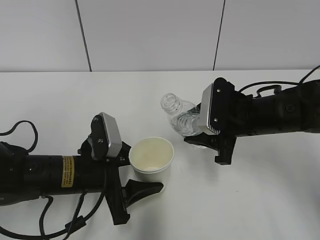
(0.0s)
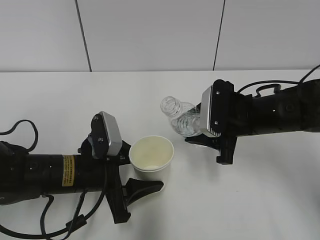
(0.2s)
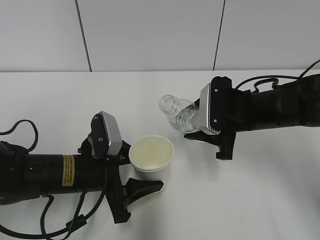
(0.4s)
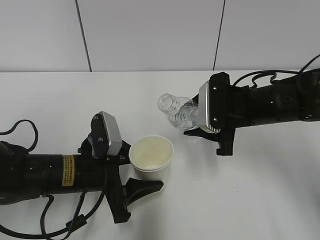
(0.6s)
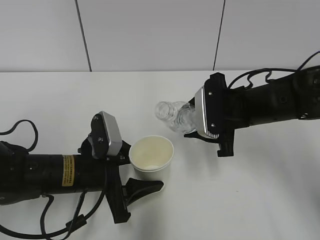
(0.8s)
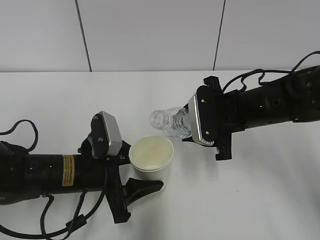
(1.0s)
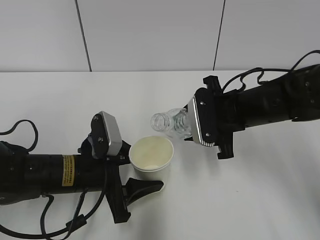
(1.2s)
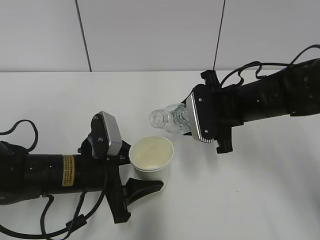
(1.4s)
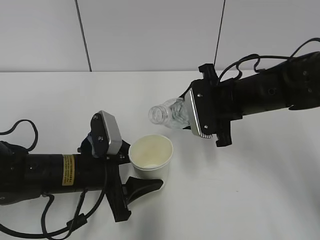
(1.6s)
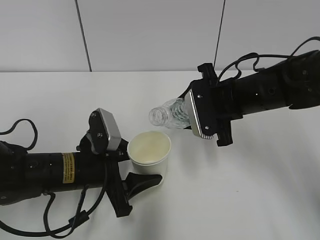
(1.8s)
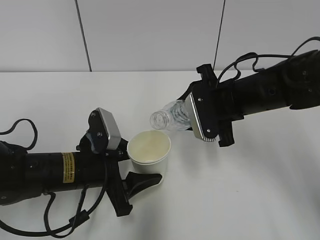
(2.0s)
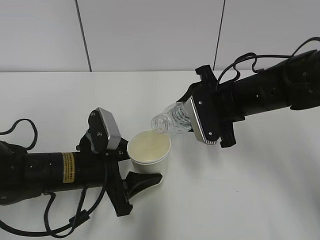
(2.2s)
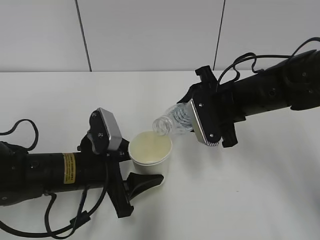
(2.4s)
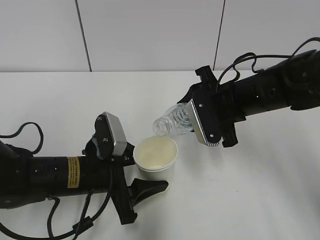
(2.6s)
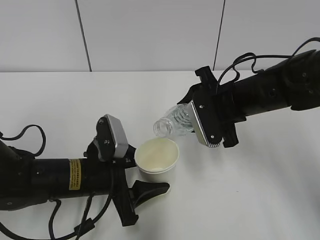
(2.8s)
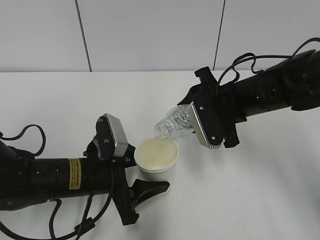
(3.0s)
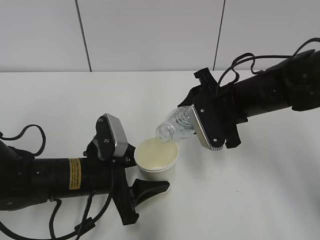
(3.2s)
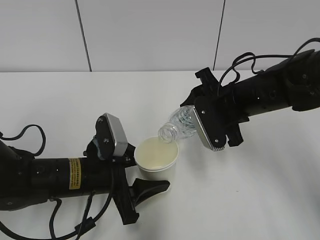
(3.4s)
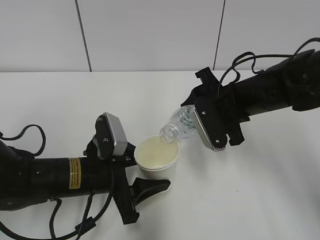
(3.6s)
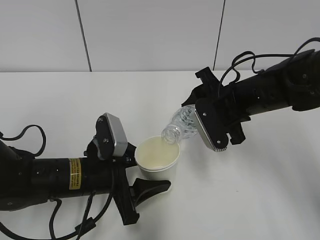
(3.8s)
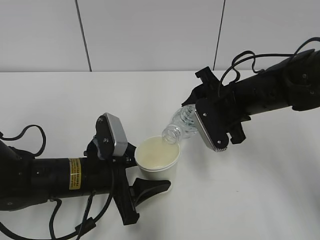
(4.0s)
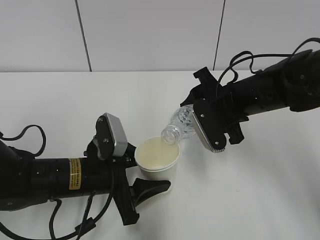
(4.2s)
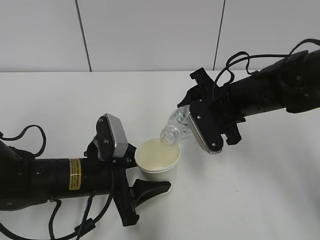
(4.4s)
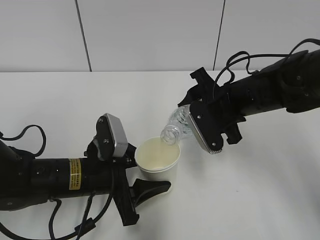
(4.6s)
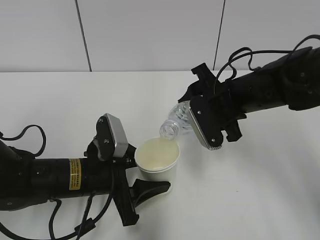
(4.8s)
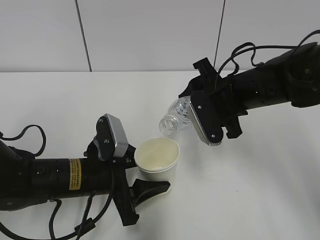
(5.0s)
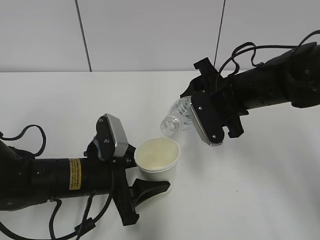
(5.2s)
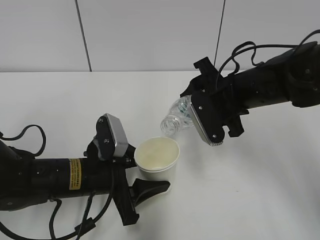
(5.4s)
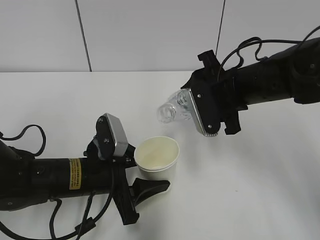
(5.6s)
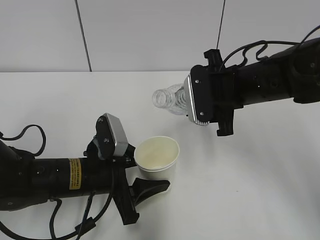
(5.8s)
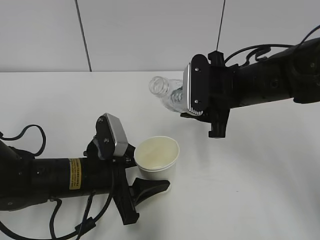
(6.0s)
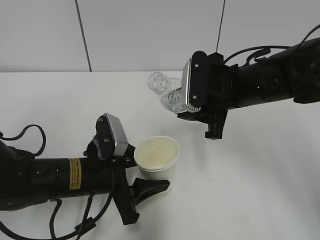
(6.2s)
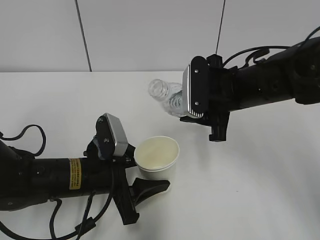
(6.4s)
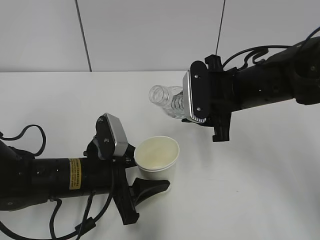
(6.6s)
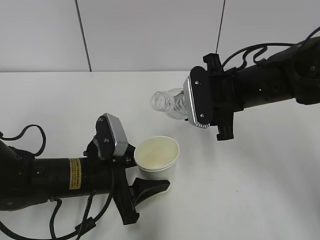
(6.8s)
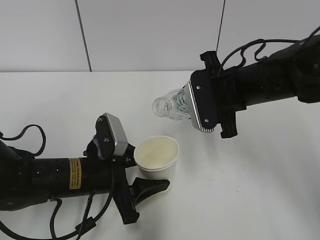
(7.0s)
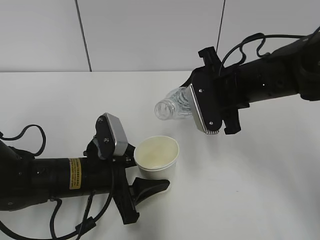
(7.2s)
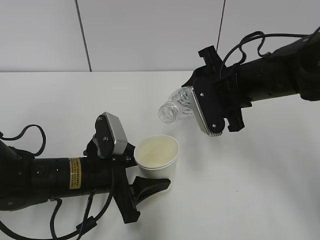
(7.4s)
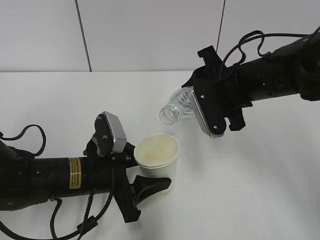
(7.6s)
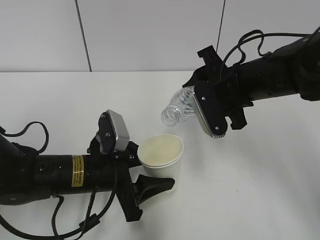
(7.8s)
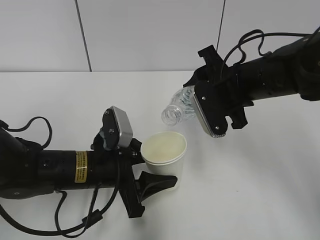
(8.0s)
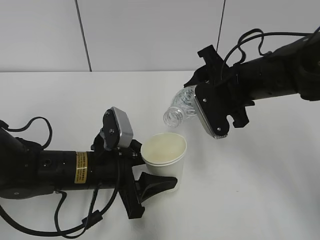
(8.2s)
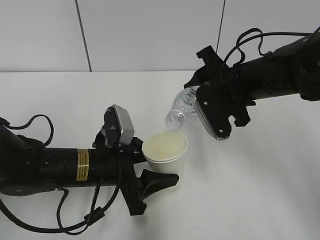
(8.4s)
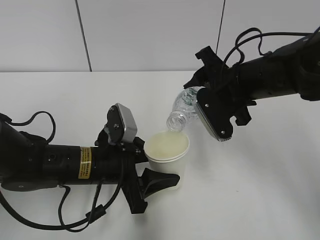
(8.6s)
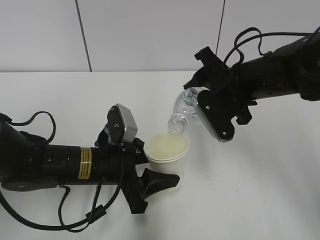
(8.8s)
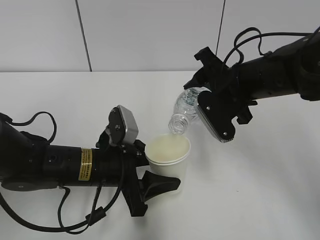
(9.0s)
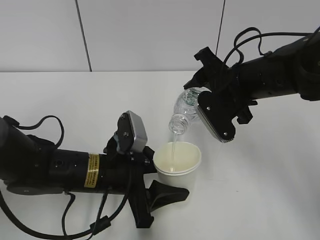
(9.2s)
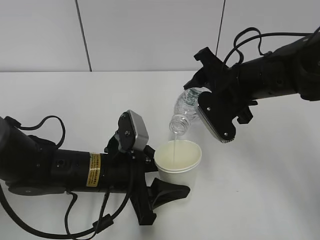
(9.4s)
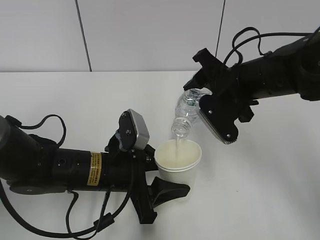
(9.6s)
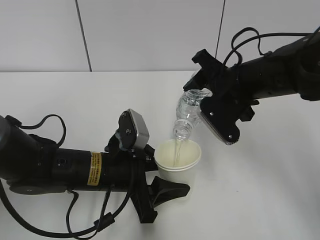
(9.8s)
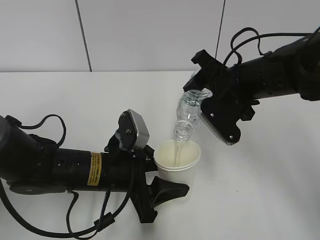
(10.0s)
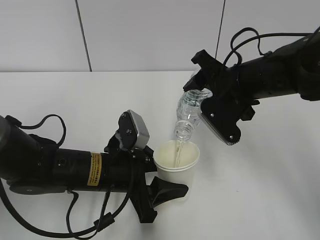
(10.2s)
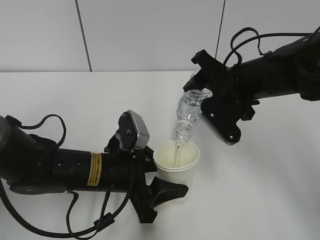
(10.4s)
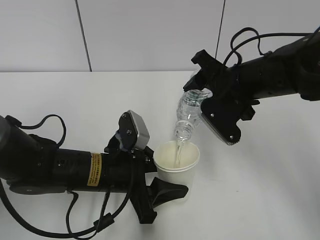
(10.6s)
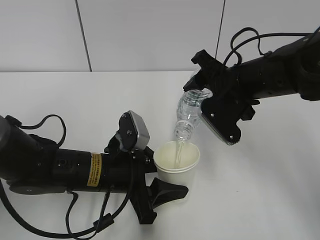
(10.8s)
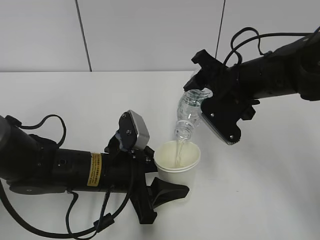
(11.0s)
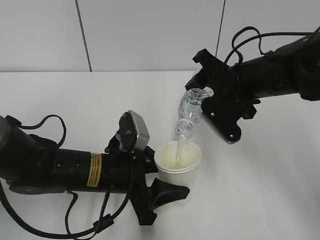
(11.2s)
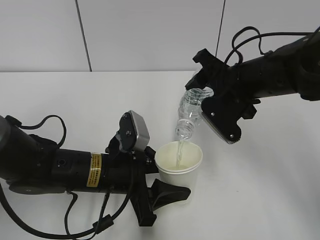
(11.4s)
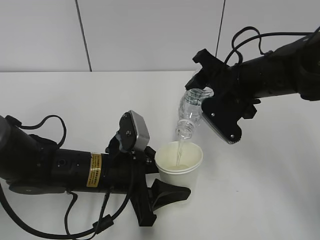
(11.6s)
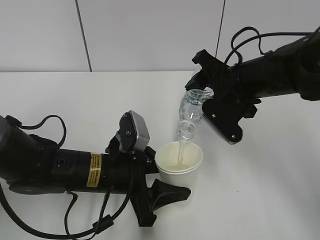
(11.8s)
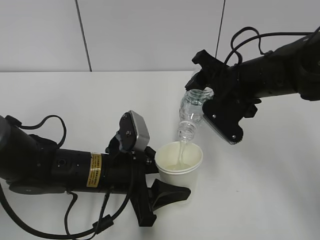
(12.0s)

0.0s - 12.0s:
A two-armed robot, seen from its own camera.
Step, 0.0s - 4.2s: Lift the paper cup with the left hand.
Step, 4.4s - 9.2s: Fill water with the left hand.
Step, 4.4s - 9.2s: Pour water with the right hand.
1.6s - 3.0s: There are only small adjustments of the grippers.
3.0s - 4.4s: The grippers make only small movements.
7.6s - 9.0s: The grippers stay close to where they were, moving slightly.
9.0s - 10.4s: The grippers make only small movements.
10.4s - 12.0s: The two grippers keep their place.

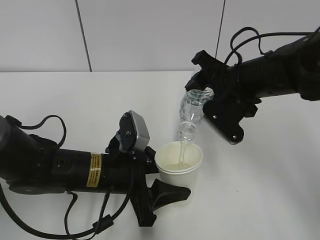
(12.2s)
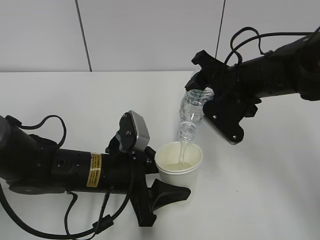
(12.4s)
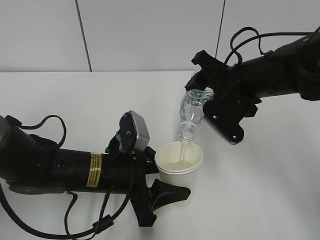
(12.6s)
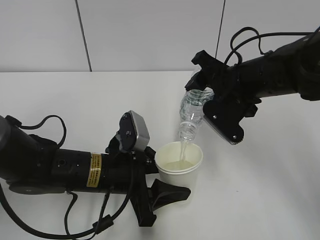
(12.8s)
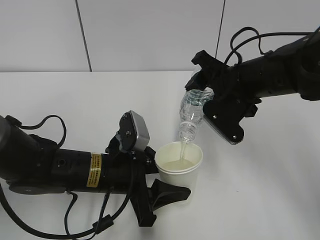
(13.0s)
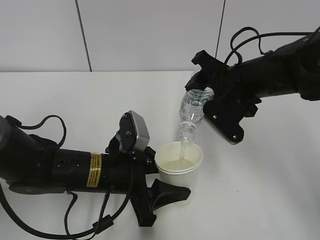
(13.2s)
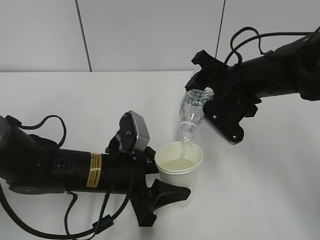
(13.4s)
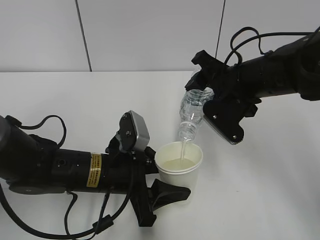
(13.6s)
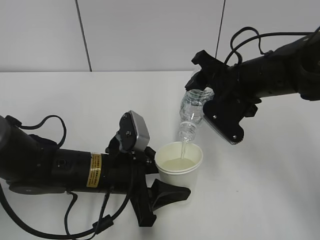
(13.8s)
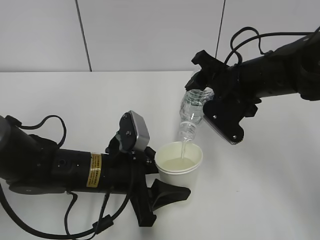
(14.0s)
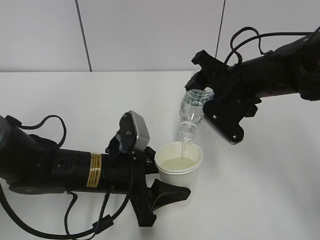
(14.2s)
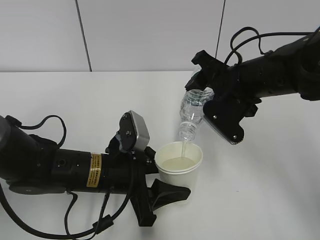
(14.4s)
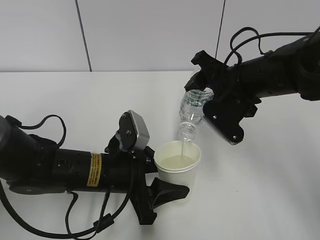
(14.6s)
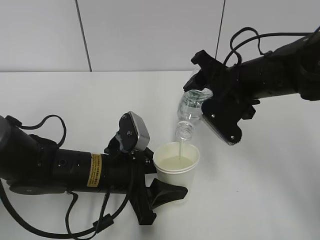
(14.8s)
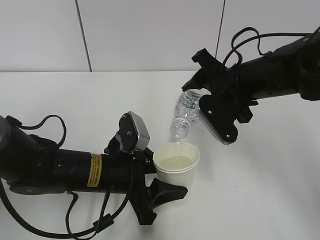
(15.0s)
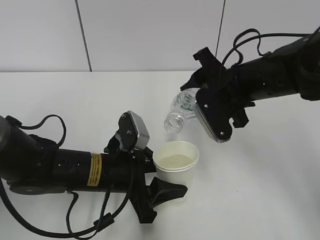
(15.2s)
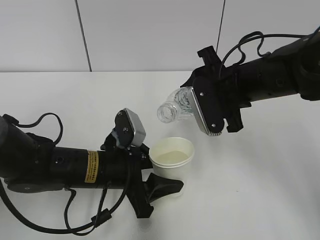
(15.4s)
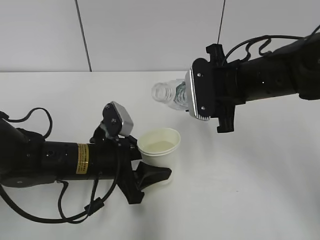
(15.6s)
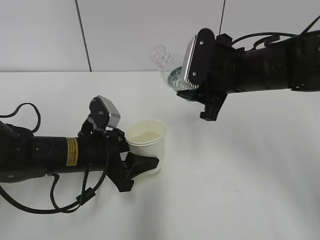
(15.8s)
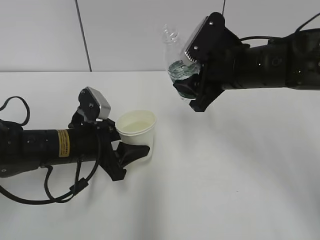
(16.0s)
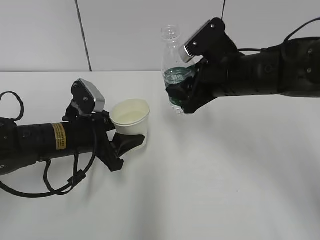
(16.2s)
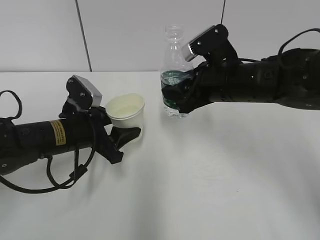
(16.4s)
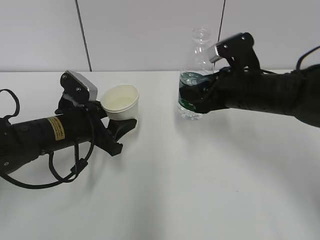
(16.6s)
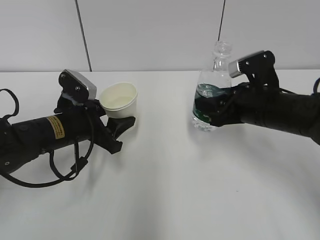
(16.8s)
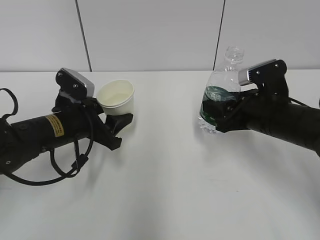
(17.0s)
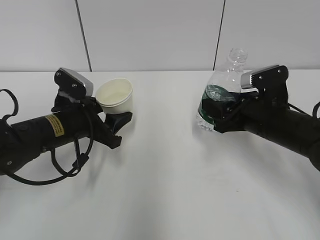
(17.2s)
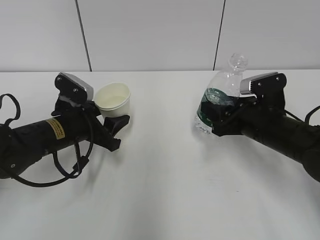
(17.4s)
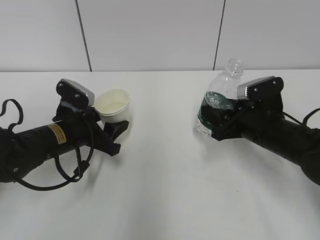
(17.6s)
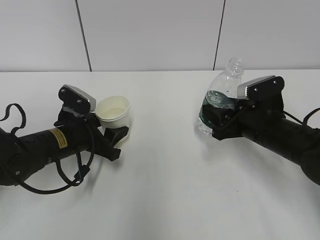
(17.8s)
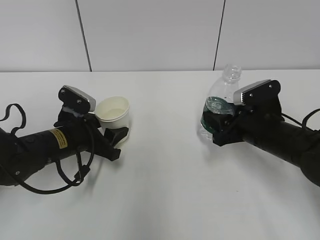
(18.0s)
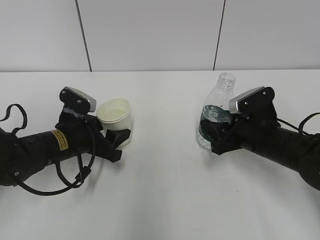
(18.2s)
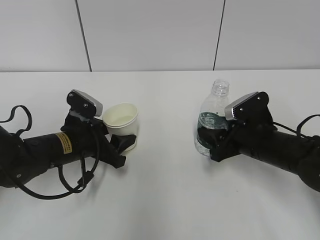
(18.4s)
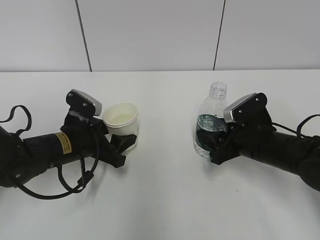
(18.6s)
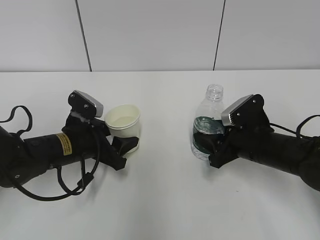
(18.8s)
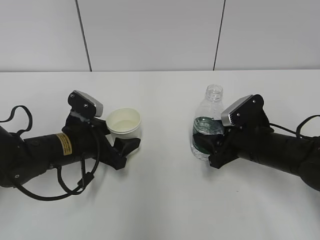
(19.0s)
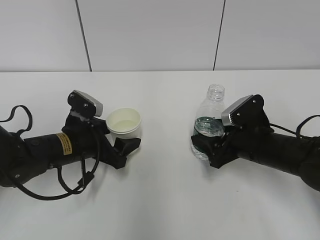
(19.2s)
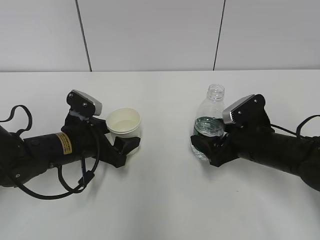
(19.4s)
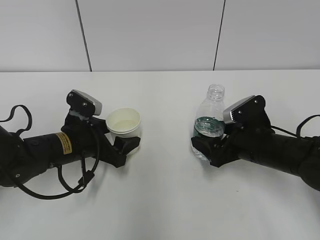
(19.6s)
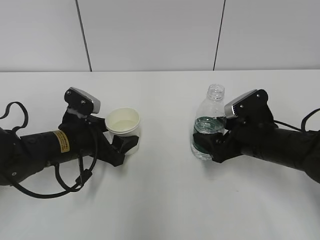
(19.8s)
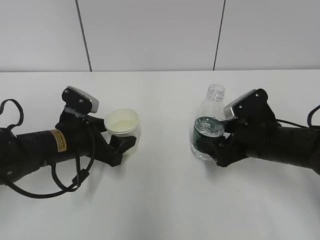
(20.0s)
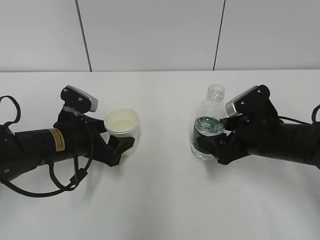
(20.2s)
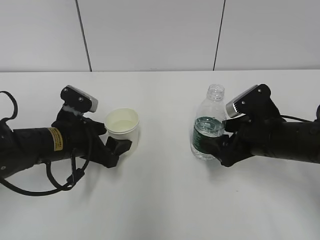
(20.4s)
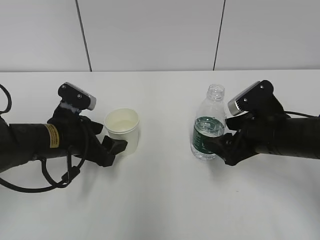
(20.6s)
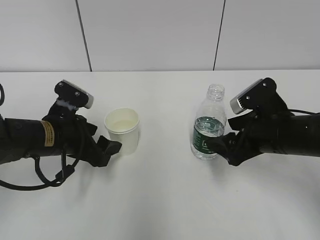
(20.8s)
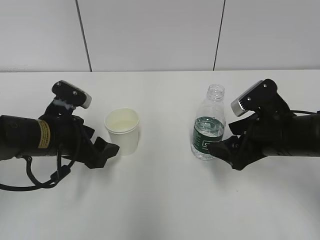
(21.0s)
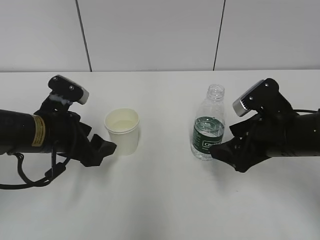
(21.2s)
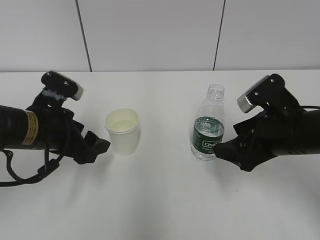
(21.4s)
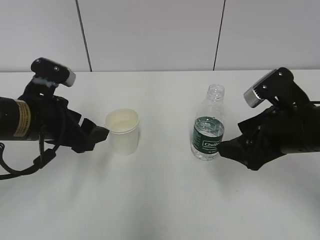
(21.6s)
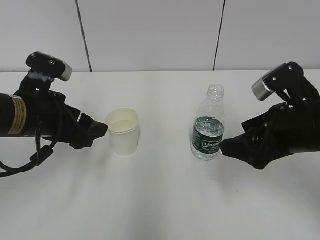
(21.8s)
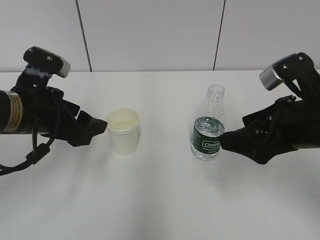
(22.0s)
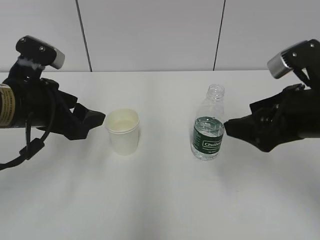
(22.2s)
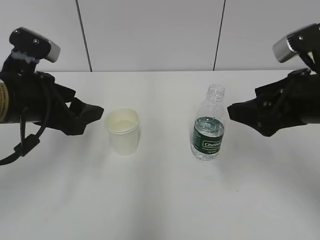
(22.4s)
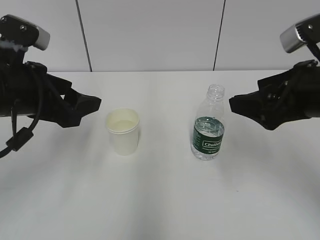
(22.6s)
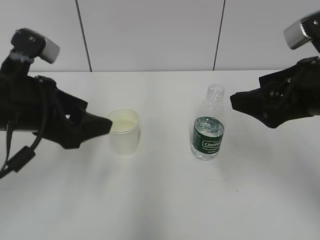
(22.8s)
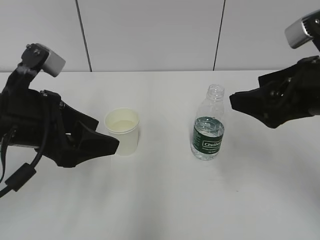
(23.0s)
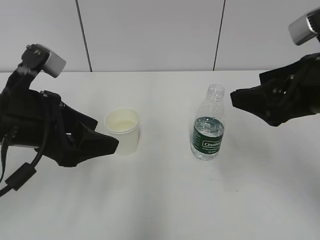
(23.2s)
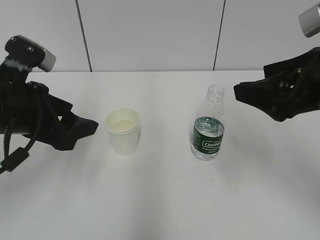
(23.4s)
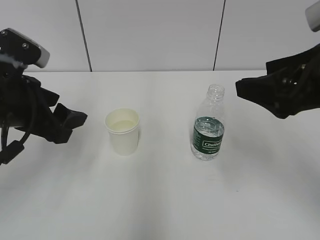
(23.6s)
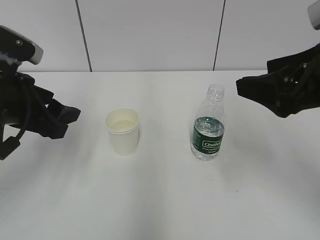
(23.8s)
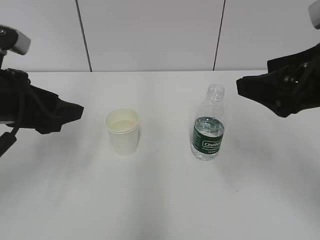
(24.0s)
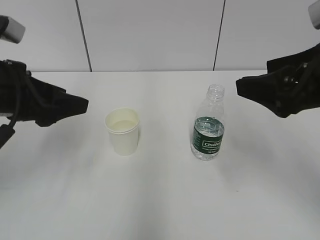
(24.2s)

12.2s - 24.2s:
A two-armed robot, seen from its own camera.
12.2s - 13.8s: The two grippers keep their place.
13.8s - 15.2s: The grippers move only a little.
15.2s - 16.6s: The left gripper shifts approximately 10 cm to the left and forward.
16.6s - 18.2s: The right gripper goes roughly 10 cm downward.
18.2s - 19.8s: The left gripper opens up. Meanwhile the right gripper opens.
19.8s - 21.2s: Both grippers travel together upward, approximately 5 cm.
21.2s - 22.6s: Both grippers move upward, approximately 10 cm.
